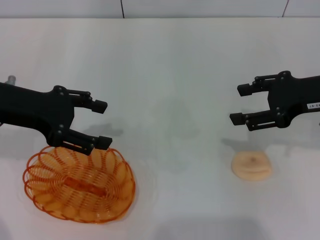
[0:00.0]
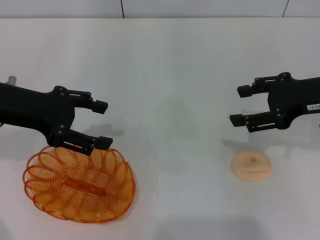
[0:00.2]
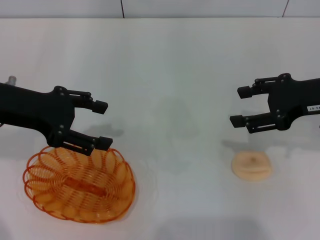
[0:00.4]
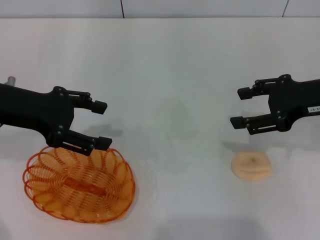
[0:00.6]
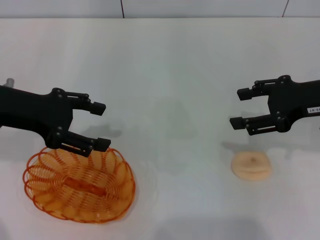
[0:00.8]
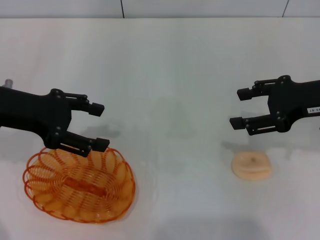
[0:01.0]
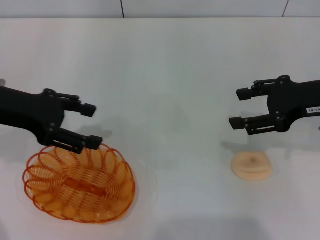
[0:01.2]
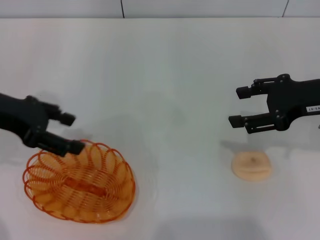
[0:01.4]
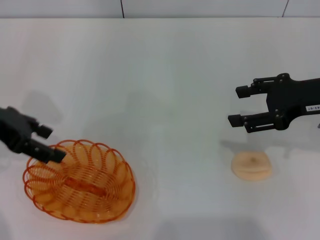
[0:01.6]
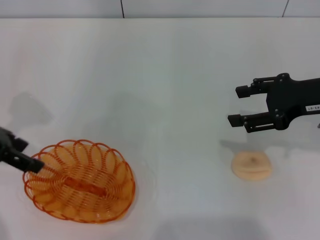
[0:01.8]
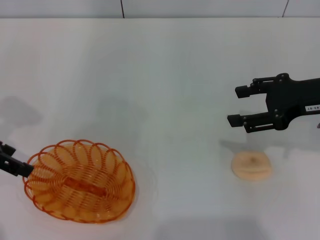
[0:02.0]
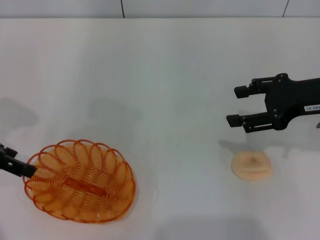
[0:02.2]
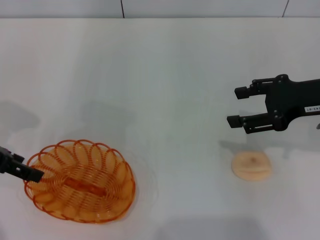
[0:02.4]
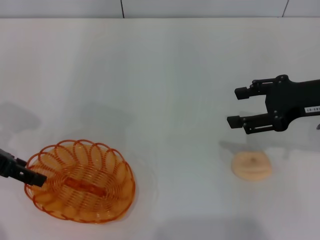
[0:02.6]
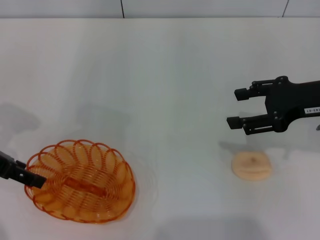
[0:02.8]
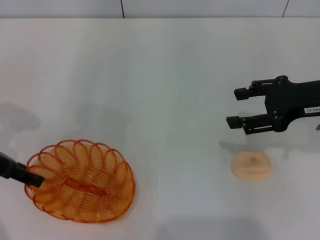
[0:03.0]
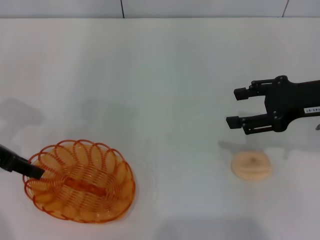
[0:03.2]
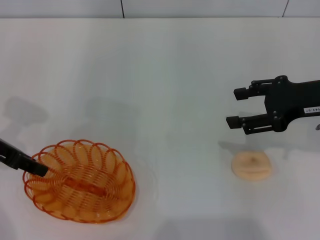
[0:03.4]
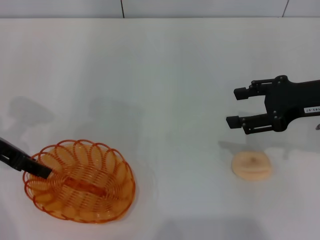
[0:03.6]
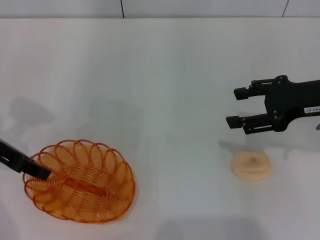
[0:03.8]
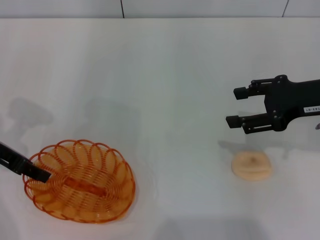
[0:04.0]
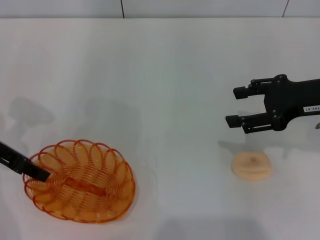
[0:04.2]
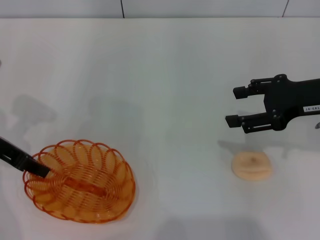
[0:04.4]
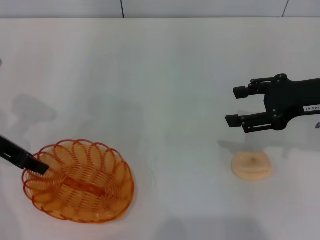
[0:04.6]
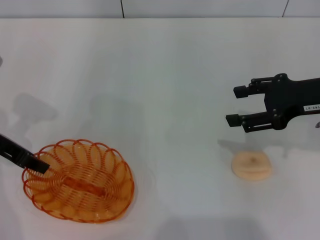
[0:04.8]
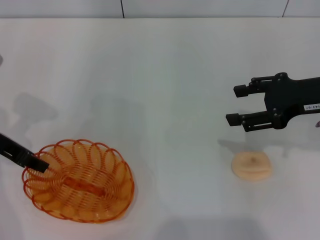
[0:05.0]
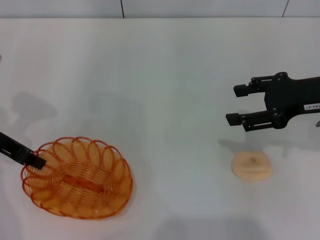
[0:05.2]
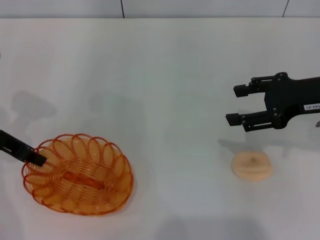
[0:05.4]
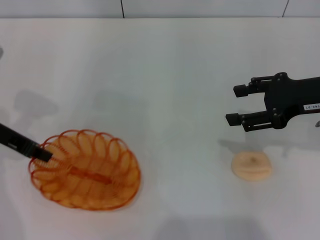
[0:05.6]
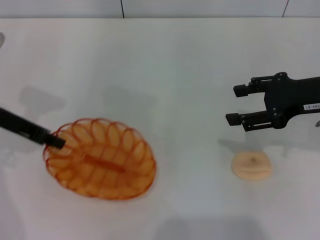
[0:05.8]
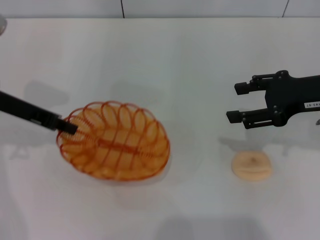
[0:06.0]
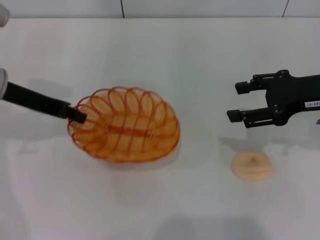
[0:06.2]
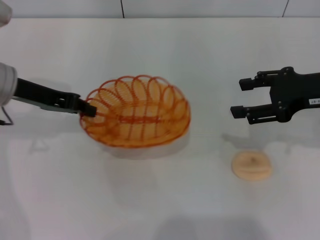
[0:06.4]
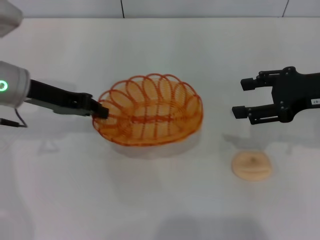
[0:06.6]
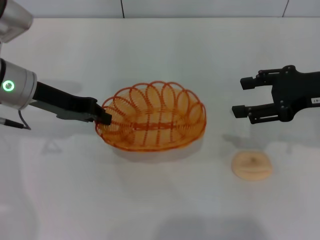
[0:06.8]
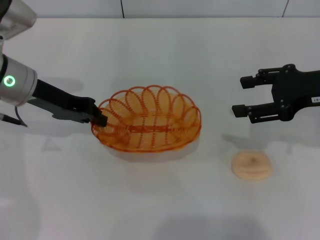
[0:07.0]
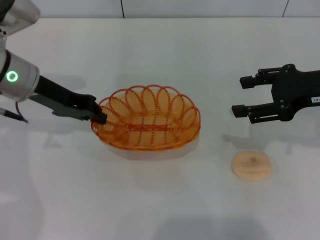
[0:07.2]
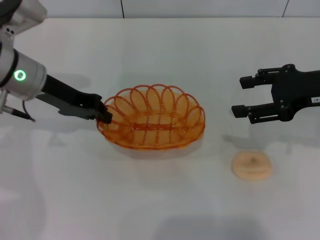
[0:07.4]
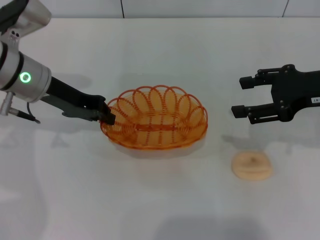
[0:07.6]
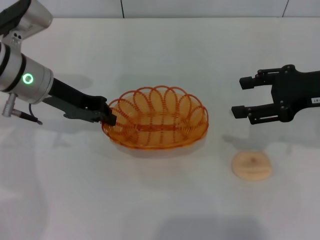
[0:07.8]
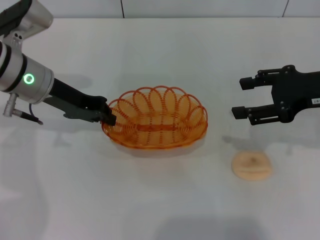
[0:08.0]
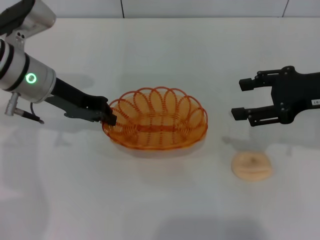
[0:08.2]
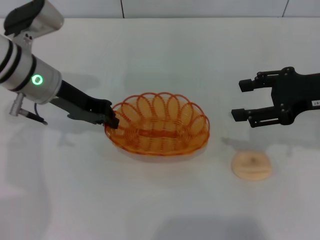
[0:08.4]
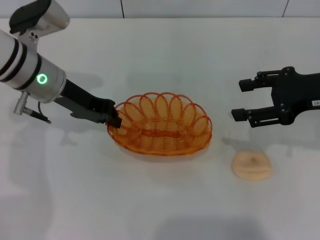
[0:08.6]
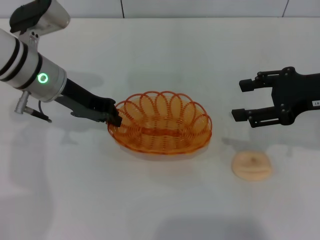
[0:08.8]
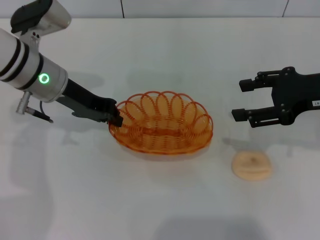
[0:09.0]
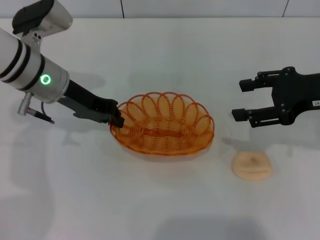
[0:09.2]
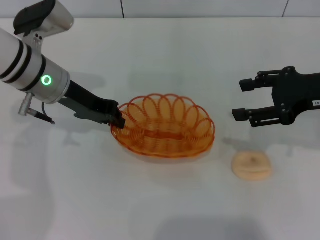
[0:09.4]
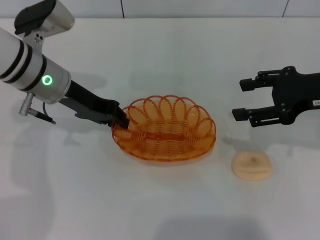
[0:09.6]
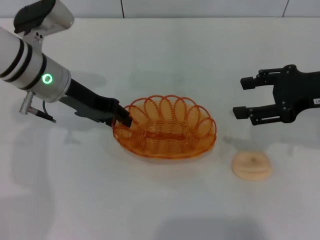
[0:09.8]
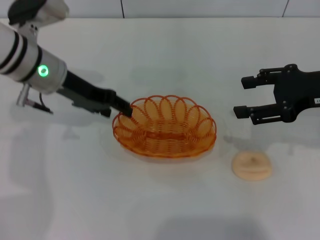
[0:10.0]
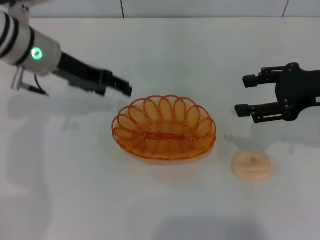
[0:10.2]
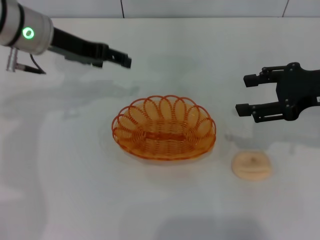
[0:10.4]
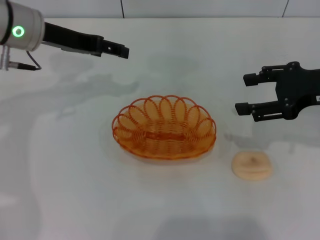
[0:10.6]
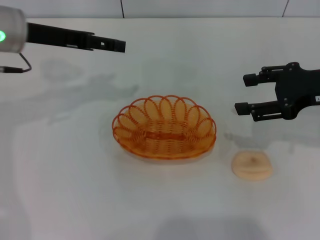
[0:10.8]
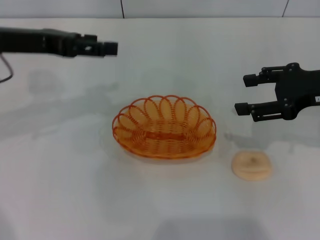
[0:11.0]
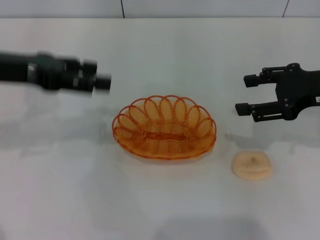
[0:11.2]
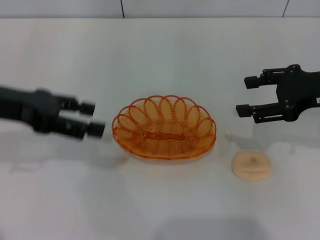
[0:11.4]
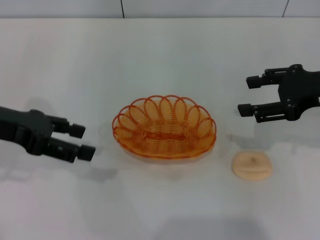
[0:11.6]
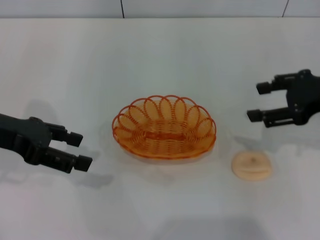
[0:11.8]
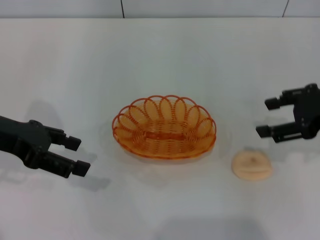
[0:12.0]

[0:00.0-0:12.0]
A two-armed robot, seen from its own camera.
Step, 0:00.0 to 0:06.2: Pick up the basket with the left gripper.
Step, 0:06.4 to 0:10.4: Place the basket in the center of view with the left gripper.
0:01.6 to 0:03.0: The left gripper shifts by roughly 5 cm.
0:03.0 to 0:04.4: The left gripper closes its fingers.
0:04.4 to 0:06.0: The grippers make only small movements.
0:06.0 to 0:07.6: The left gripper moves to the right, roughly 5 cm.
0:07.6 to 0:09.0: There are only small adjustments of the grippers.
0:09.0 to 0:10.4: The left gripper shifts by some 5 cm, and opens.
0:10.4 to 0:12.0: The left gripper shifts approximately 15 cm backward and to the left.

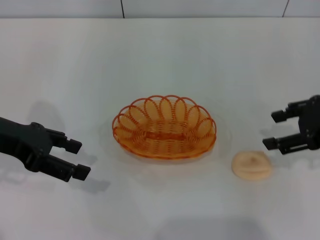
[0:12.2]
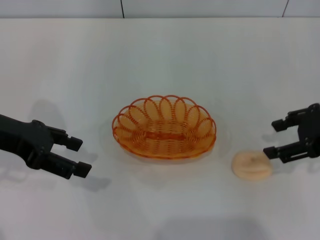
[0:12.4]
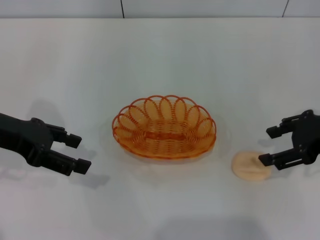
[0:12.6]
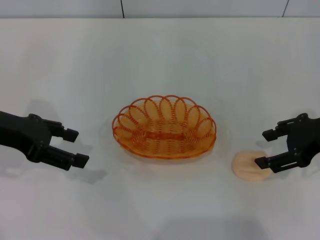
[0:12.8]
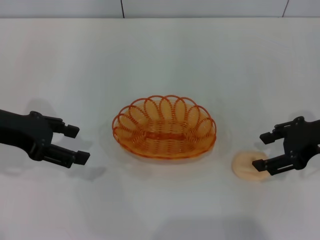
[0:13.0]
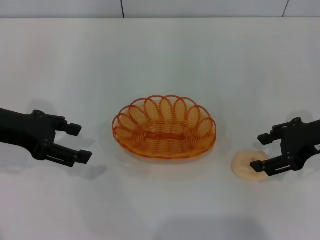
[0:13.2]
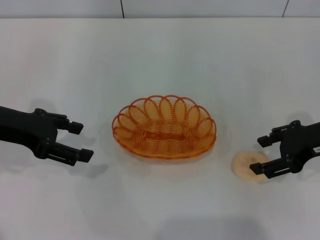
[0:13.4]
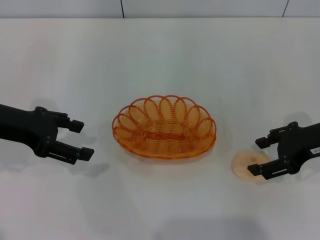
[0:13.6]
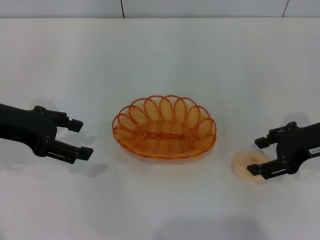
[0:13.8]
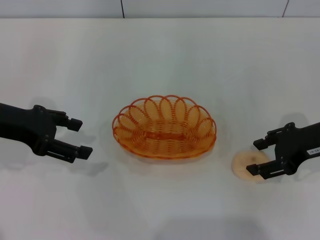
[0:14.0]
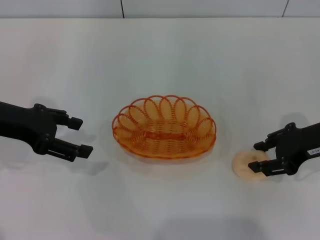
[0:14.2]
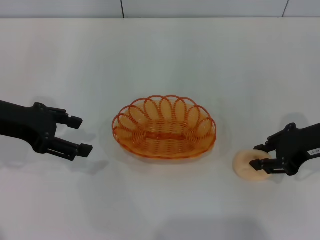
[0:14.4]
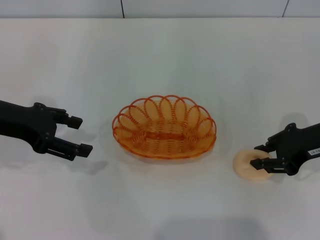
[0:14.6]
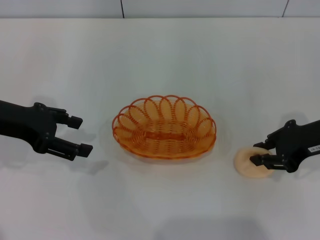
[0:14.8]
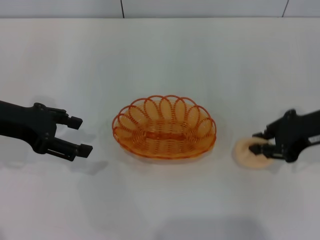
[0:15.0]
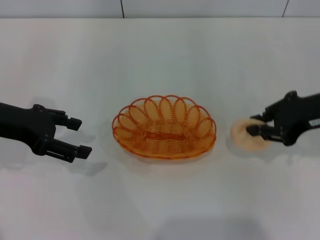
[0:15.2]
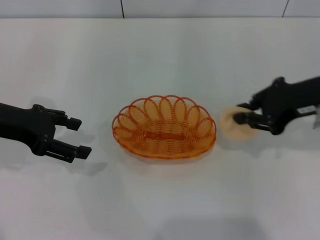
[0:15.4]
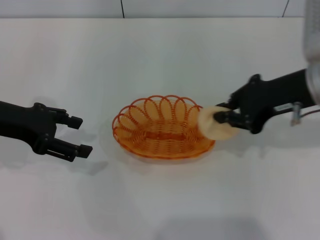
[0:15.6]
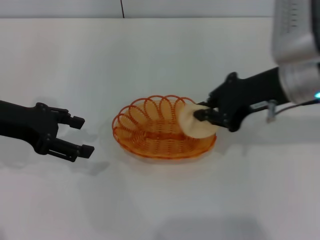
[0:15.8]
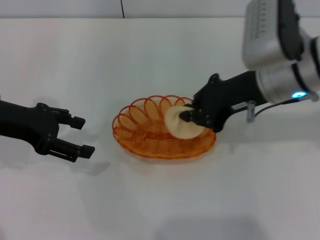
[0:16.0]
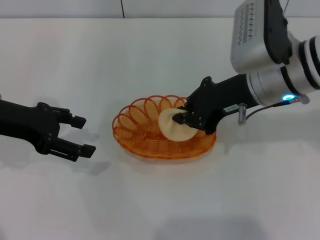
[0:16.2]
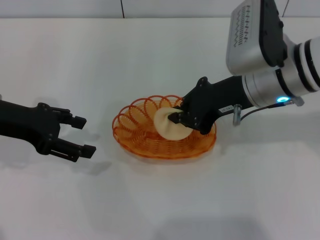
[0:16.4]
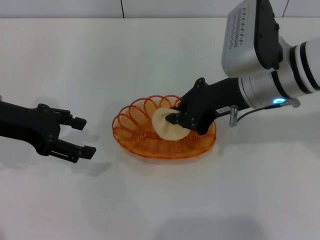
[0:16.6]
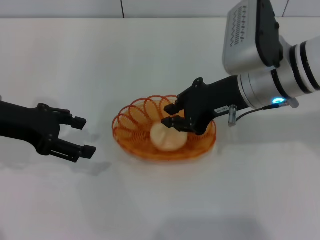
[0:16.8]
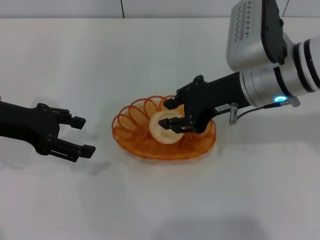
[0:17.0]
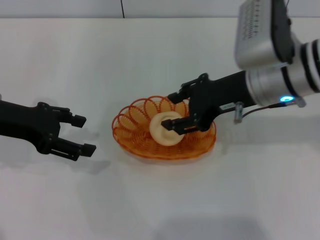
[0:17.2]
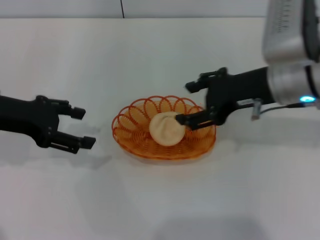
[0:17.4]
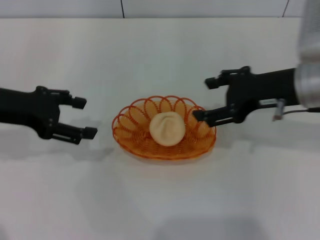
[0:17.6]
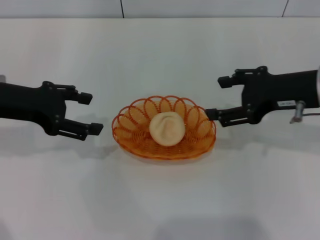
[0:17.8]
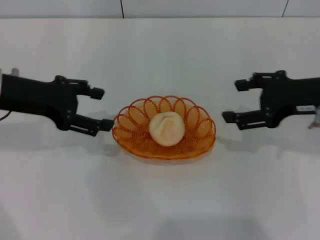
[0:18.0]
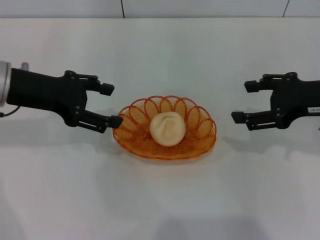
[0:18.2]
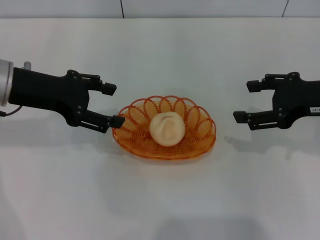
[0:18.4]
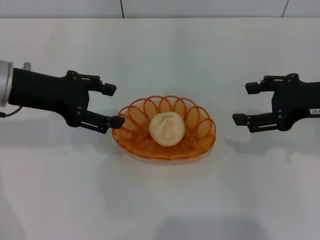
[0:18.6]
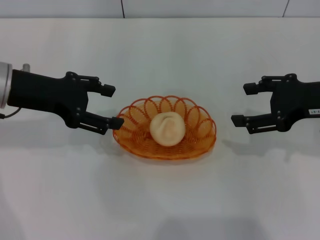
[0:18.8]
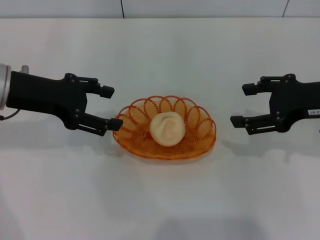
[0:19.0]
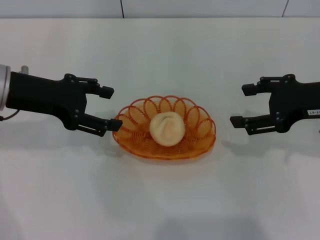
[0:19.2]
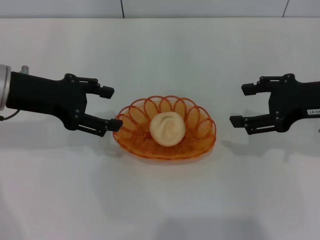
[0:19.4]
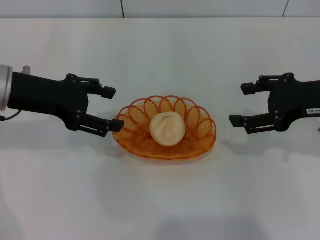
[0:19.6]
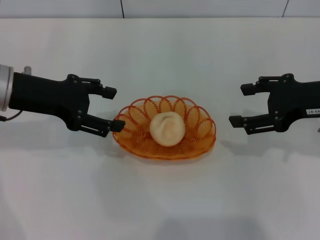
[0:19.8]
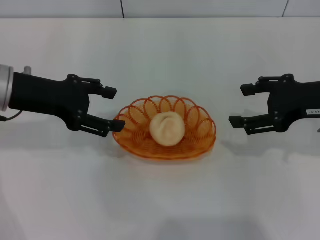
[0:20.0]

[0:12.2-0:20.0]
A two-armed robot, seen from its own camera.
Step, 0:12.2 to 0:15.2: Pick up the egg yolk pastry with the right gripper.
Step, 0:15.4 to 0:17.8: Place the egg yolk pastry into the basket with the right gripper.
0:12.2 to 0:13.8: The right gripper changes place by about 5 cm.
0:13.8 to 0:15.4: The right gripper heads upward, covering approximately 5 cm, and closes up.
0:15.4 to 0:16.8: The right gripper heads to the left, covering some 10 cm.
0:16.8 to 0:18.4: The right gripper goes some 15 cm to the right, and opens up.
0:18.4 to 0:20.0: The two grippers keep their place.

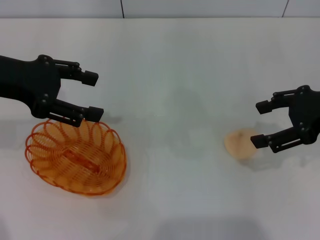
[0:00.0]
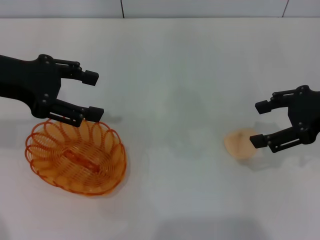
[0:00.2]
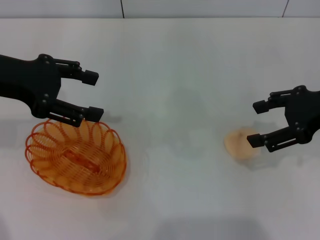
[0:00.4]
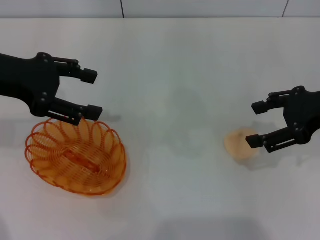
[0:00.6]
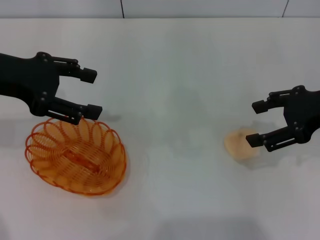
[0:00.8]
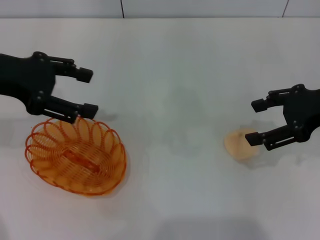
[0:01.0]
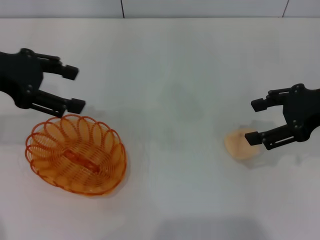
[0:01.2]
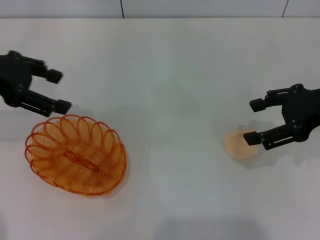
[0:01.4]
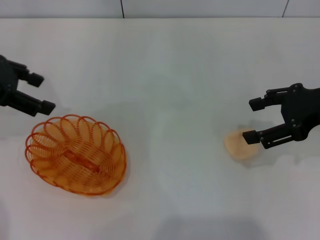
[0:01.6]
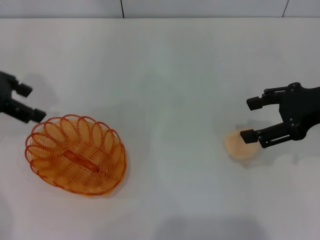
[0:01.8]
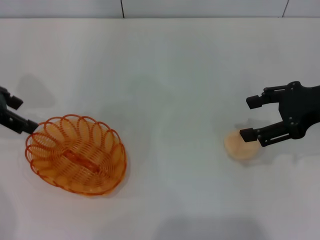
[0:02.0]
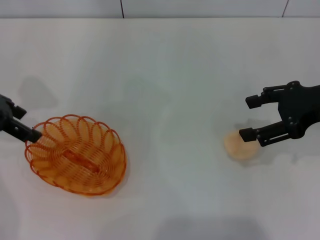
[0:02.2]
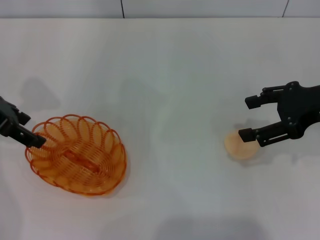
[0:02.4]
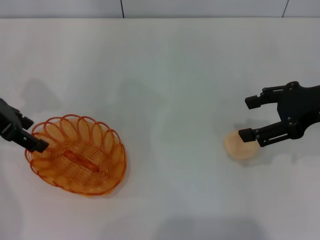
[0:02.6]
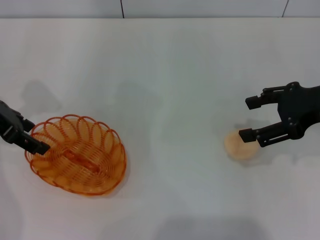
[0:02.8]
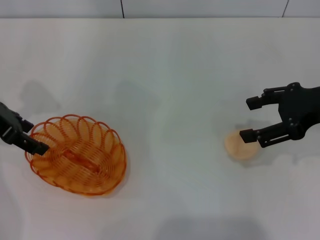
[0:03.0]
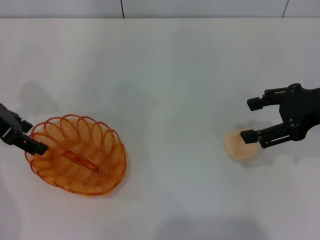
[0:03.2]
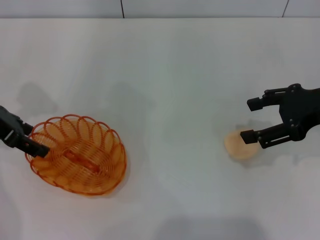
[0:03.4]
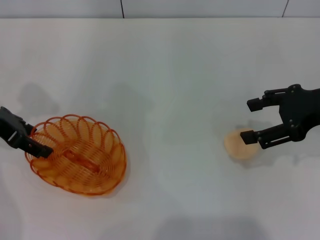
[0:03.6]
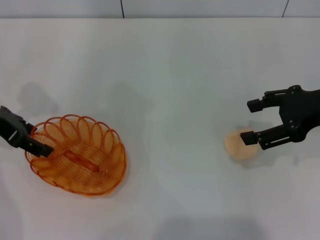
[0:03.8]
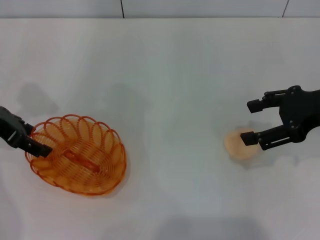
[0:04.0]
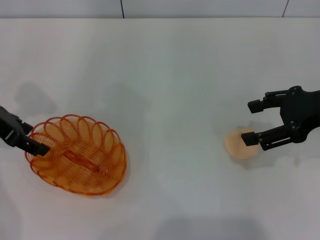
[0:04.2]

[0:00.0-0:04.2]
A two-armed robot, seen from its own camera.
0:00.0 to 0:01.4: The grippers move only a little.
0:01.4 to 0:02.8: The left gripper shifts about 5 cm downward.
0:02.8 to 0:04.2: The grippers make only small movements.
